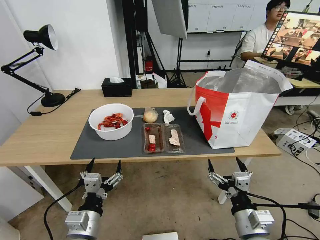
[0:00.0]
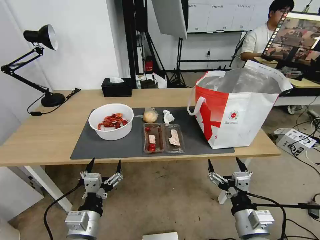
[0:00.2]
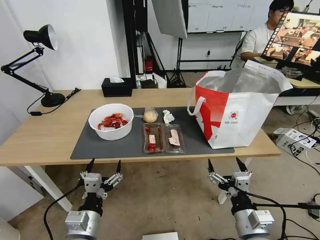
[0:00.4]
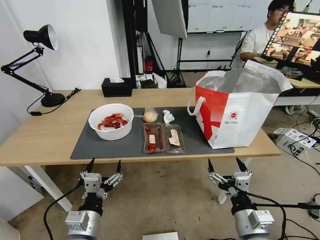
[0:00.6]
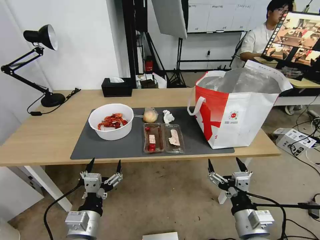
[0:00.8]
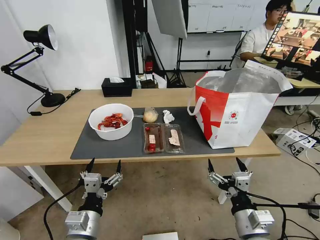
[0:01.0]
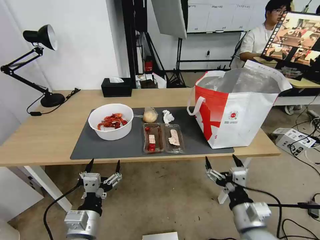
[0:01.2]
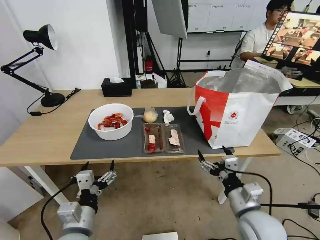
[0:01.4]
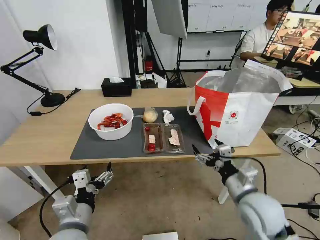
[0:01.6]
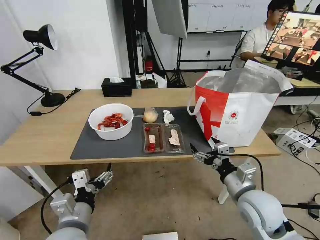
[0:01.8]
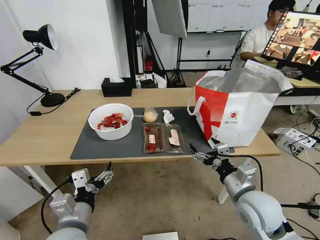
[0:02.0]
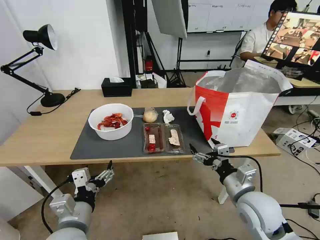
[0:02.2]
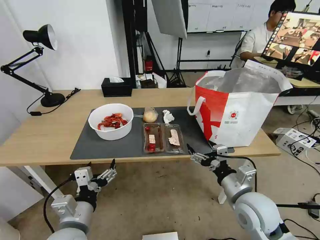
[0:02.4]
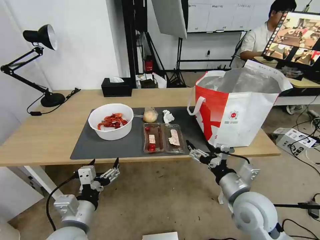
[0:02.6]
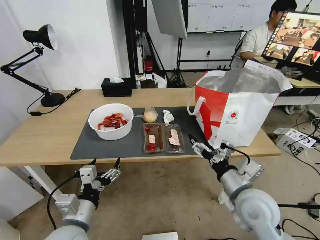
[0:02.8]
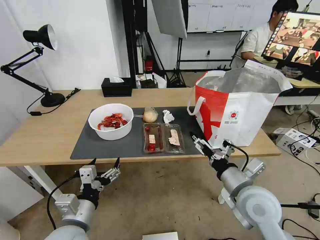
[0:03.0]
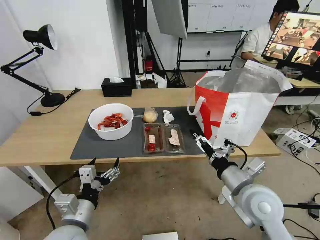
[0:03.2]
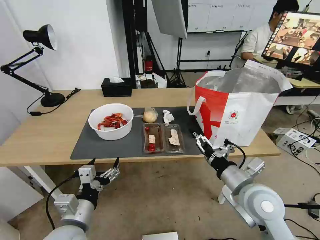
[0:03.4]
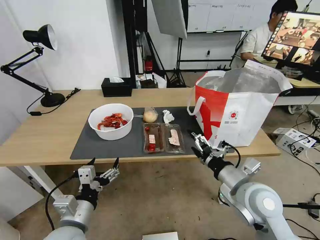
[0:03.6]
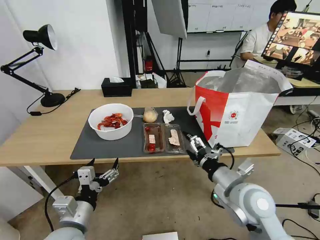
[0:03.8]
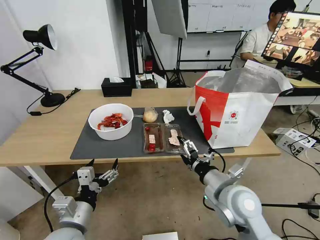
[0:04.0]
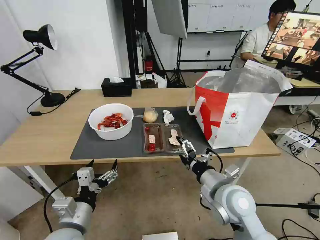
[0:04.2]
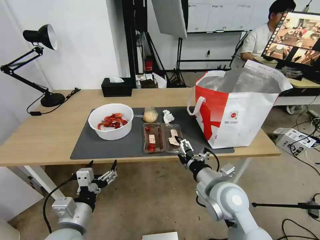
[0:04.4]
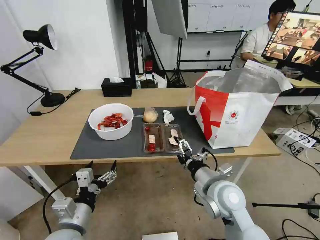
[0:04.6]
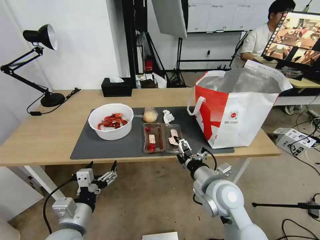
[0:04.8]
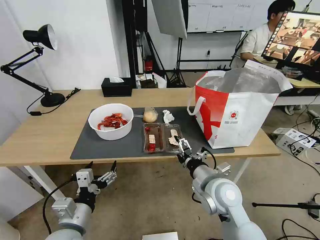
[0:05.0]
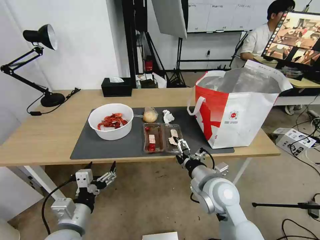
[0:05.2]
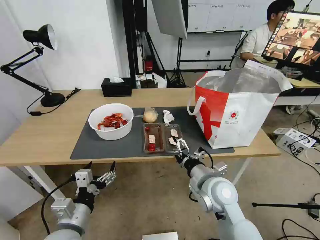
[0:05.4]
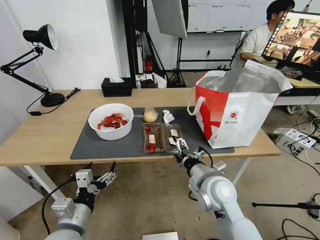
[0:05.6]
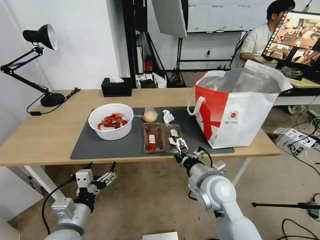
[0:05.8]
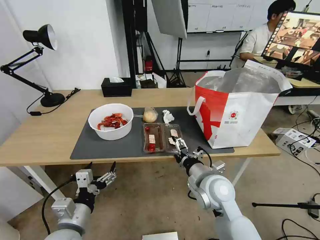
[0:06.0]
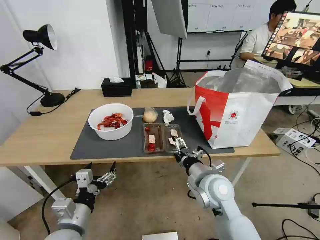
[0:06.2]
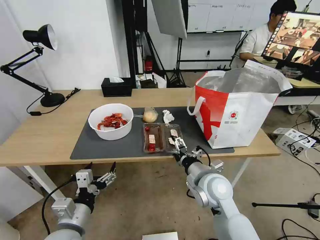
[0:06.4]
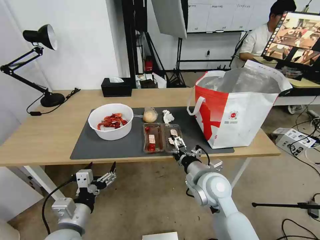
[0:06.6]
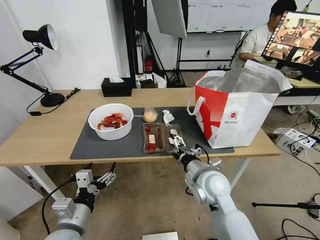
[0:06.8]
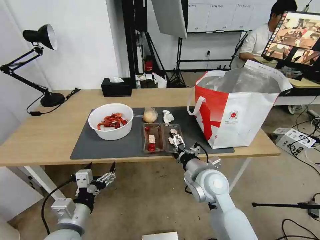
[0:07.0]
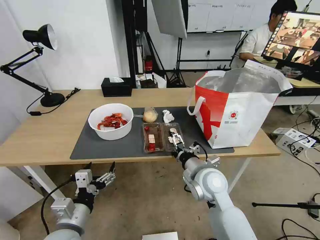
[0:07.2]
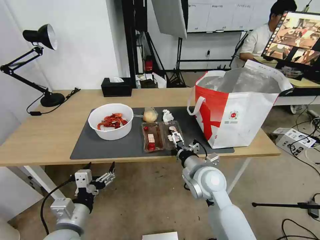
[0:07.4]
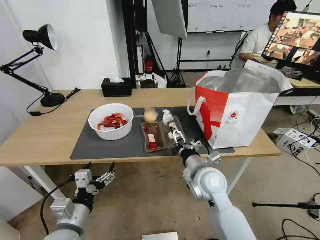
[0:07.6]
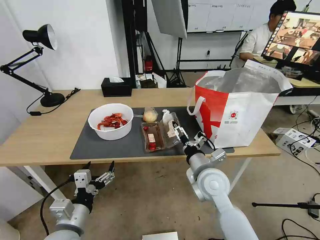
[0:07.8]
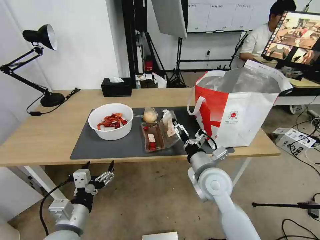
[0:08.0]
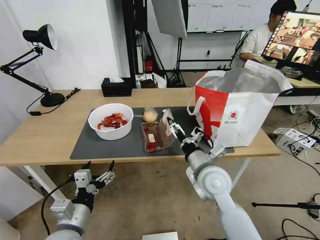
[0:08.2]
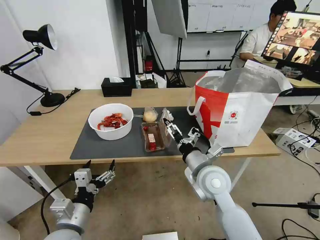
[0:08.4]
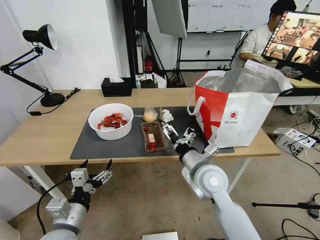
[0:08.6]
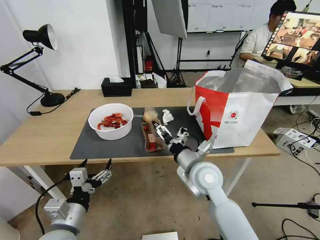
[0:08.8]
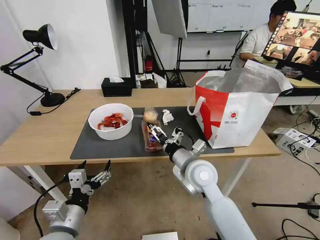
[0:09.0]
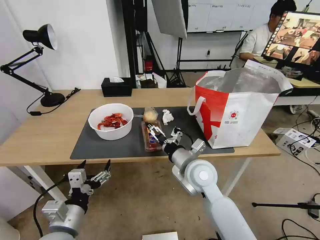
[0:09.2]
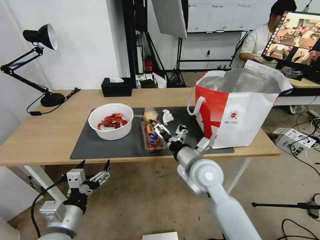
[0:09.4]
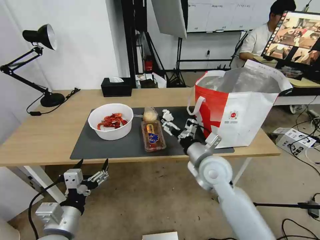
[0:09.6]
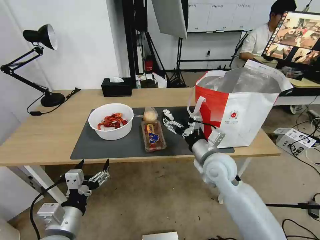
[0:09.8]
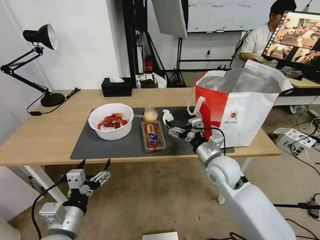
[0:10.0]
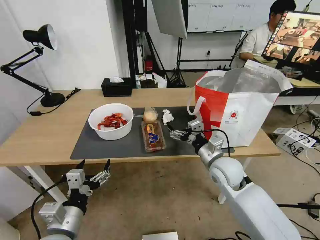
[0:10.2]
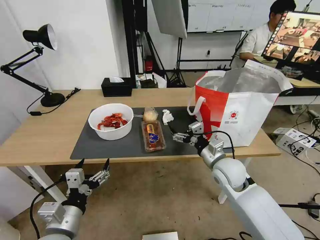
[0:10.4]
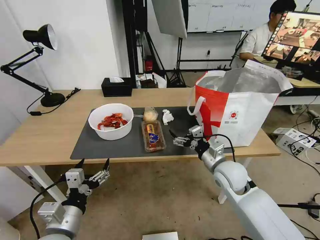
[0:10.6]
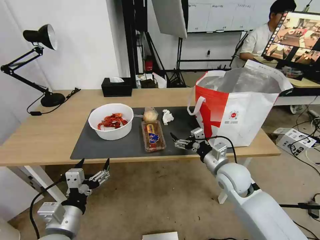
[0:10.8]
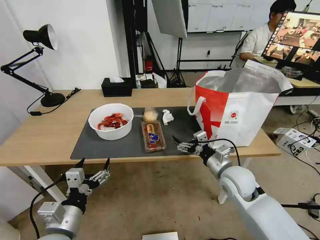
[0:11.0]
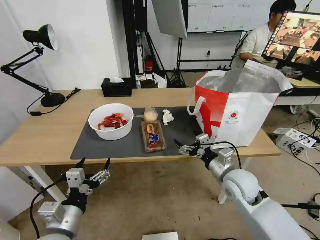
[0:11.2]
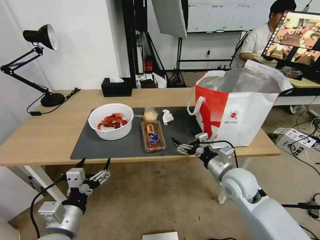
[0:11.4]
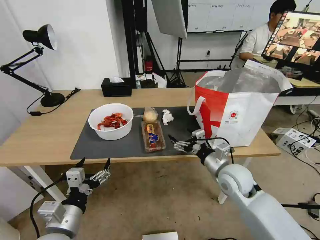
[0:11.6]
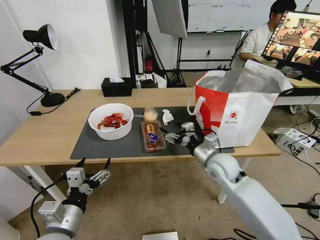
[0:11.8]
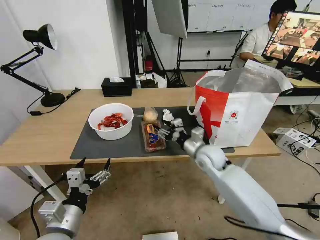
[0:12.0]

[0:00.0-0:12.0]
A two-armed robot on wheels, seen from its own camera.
Task of the whole recording: Pick up the trash from the table and place it into the takeout bag.
0:03.0 to 0:04.4: The right gripper goes approximately 5 cm to the left.
0:04.4 to 0:06.0: The grippers make only small movements.
0:06.0 to 0:07.6: There are only small adjustments of the grippers.
0:07.6 to 0:09.0: The grippers make only small movements.
0:09.0 to 0:10.4: The right gripper goes some 10 cm to the right.
0:10.4 to 0:12.0: The right gripper goes some 5 cm forward, and closes.

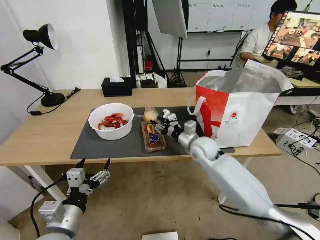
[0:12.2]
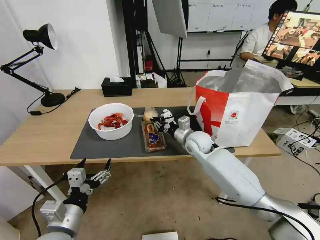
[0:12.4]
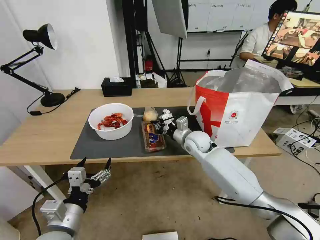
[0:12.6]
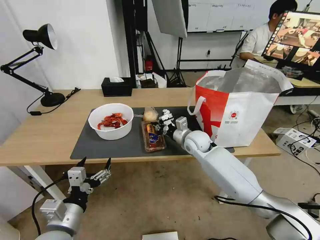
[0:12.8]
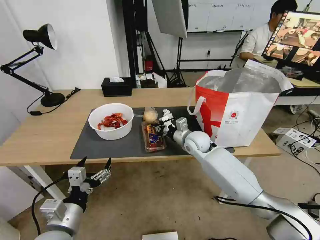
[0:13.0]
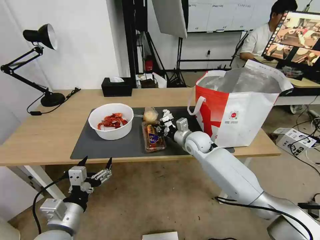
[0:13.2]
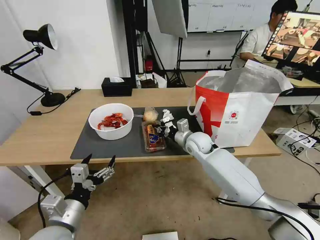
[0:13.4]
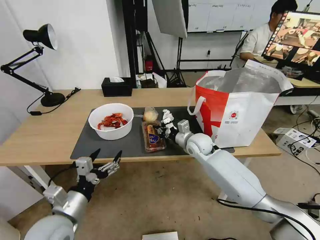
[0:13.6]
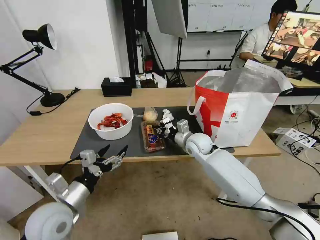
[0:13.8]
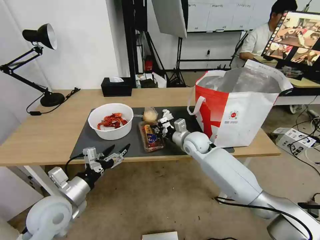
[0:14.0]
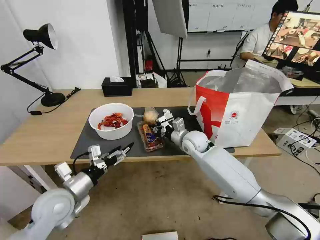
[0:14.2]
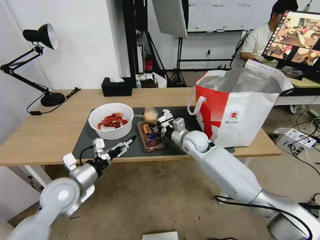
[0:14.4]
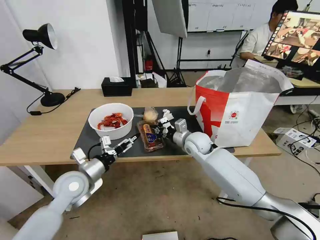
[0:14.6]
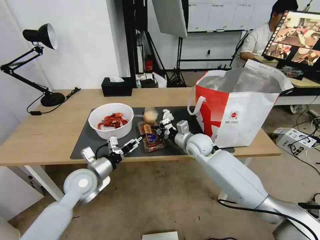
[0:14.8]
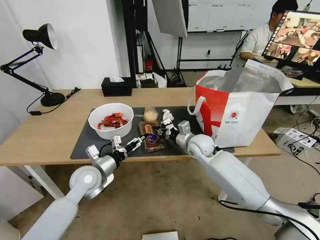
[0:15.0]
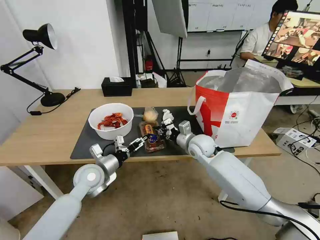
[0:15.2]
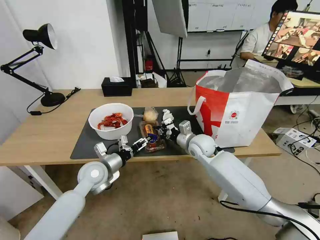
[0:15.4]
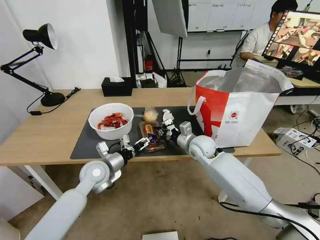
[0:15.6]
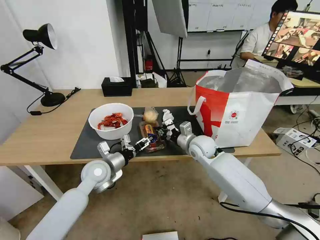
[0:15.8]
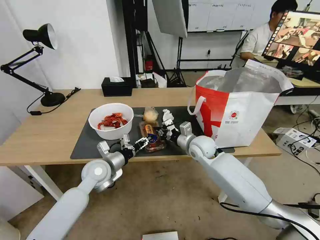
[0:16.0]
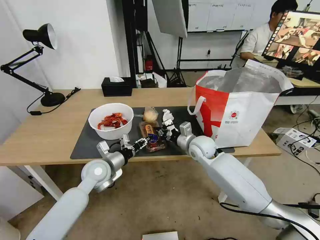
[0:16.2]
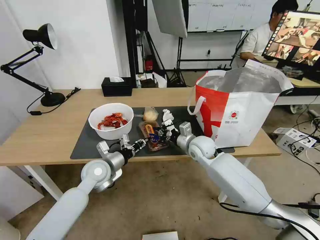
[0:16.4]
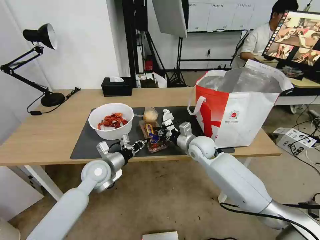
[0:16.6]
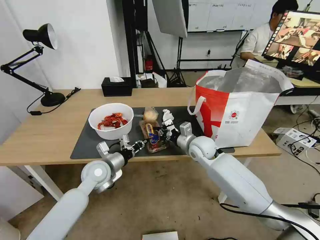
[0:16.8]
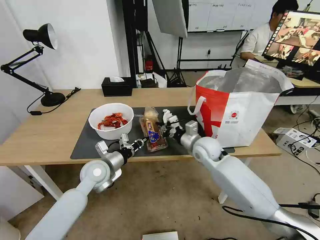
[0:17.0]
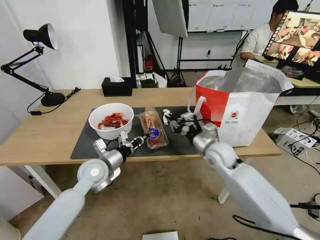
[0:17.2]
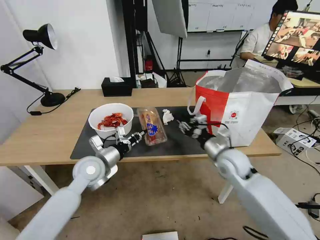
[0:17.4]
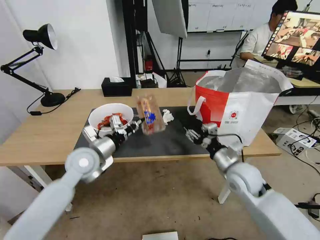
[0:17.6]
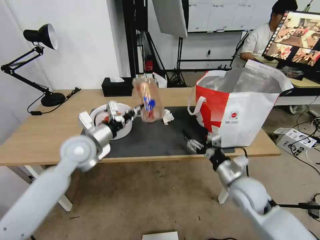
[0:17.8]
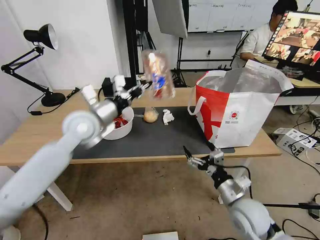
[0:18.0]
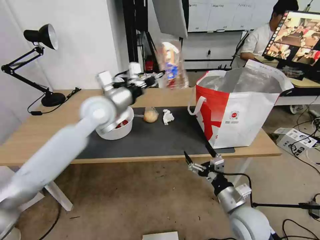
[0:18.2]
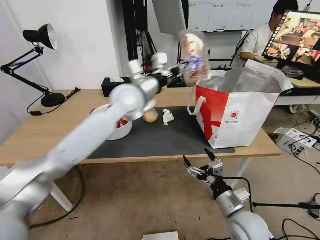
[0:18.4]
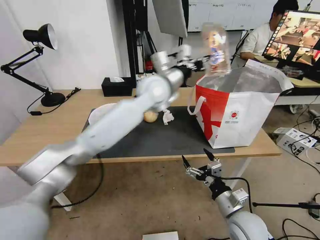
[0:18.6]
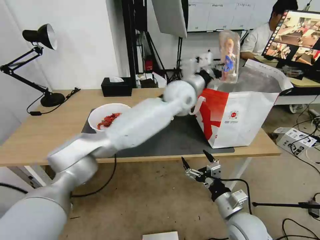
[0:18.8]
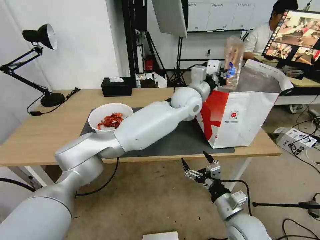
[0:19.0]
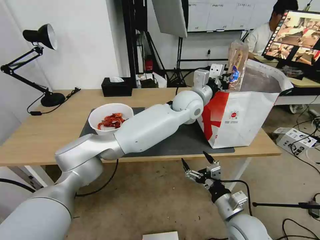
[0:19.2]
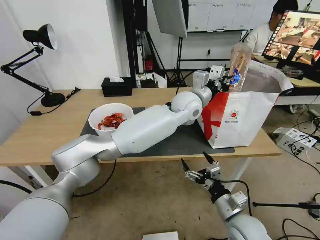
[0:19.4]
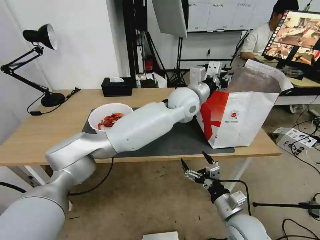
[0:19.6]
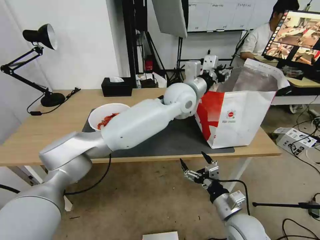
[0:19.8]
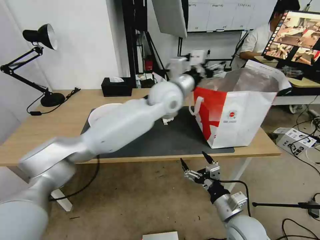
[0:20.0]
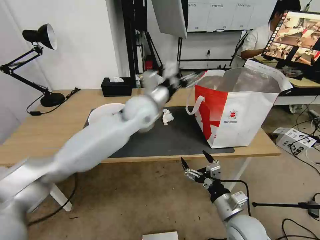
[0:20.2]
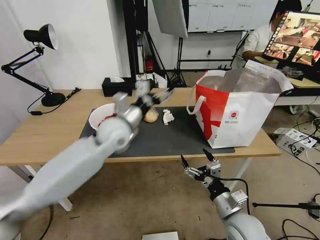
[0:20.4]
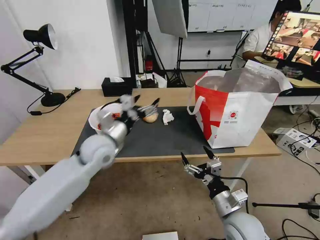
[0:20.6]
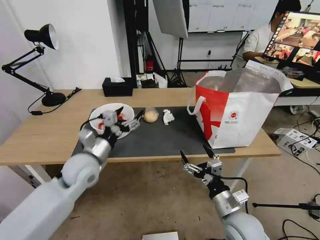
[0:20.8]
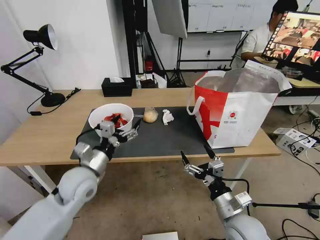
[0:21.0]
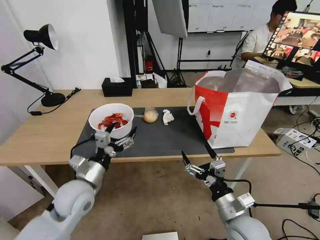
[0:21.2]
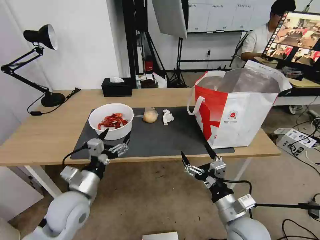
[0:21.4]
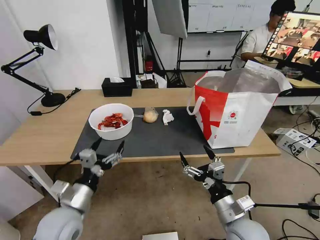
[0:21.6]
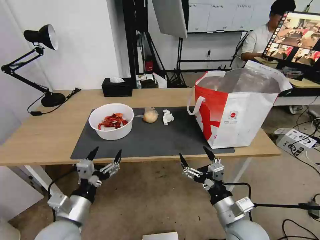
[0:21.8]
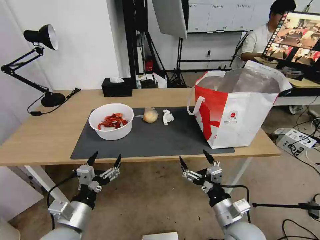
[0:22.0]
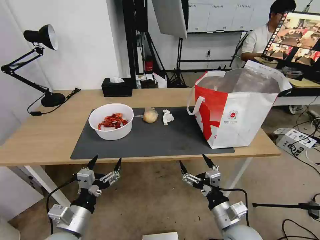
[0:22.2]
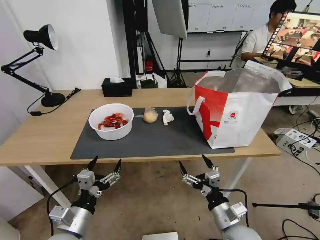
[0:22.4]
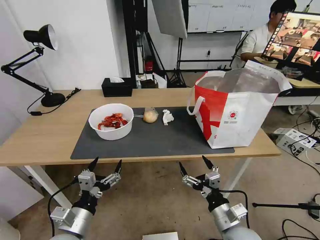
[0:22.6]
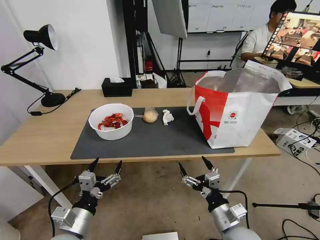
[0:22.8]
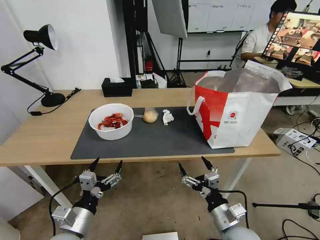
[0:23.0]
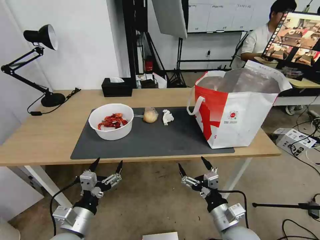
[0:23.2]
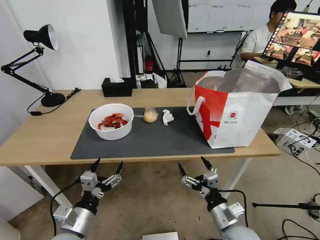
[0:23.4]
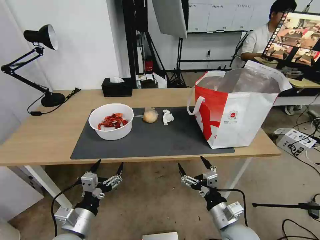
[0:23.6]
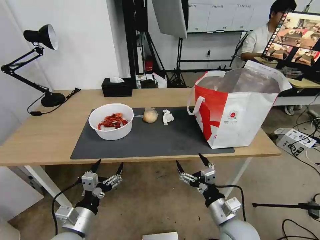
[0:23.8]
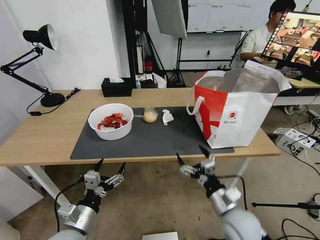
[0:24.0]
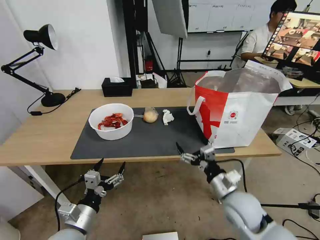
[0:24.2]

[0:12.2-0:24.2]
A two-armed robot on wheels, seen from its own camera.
Task of the whole recording: Pick up the trash from the table and place it into the takeout bag.
0:12.2 to 0:13.8: The right gripper closes. The left gripper heads forward, covering roughly 5 cm.
0:13.8 to 0:15.2: The left gripper goes approximately 15 cm forward.
0:15.2 to 0:16.6: The left gripper closes.
0:16.6 to 0:18.2: The right gripper goes about 25 cm backward, and opens up. Meanwhile the left gripper goes about 20 cm upward.
0:18.2 to 0:19.8: The left gripper heads to the right, covering roughly 25 cm, and opens its fingers.
0:19.8 to 0:21.2: The left gripper is displaced to the left, backward and downward by about 40 cm, and opens its fingers.
0:21.2 to 0:22.6: The left gripper goes roughly 10 cm backward.
0:22.6 to 0:24.2: The right gripper travels forward by roughly 10 cm.
